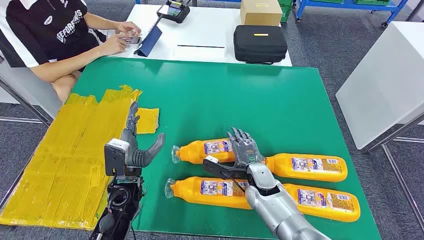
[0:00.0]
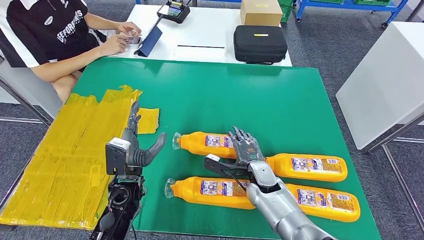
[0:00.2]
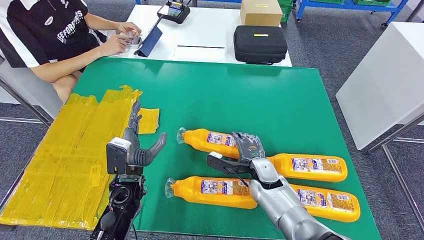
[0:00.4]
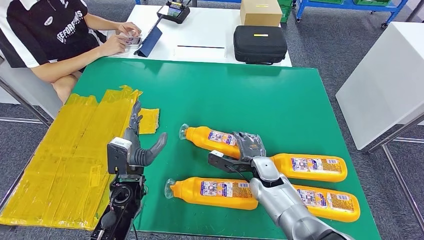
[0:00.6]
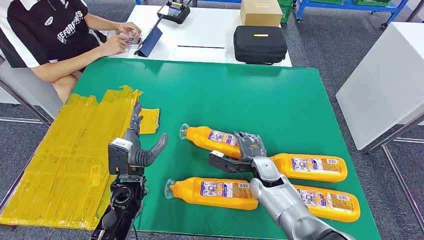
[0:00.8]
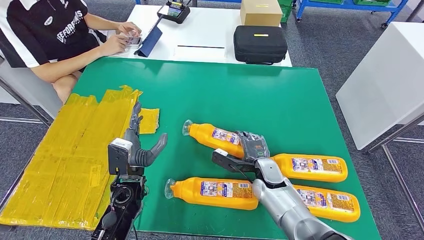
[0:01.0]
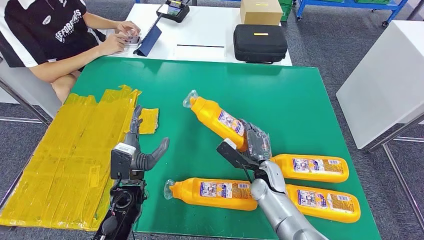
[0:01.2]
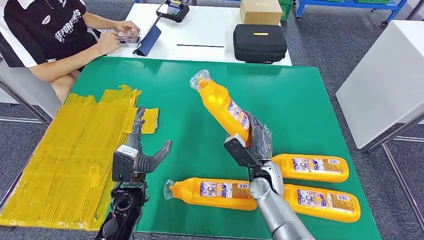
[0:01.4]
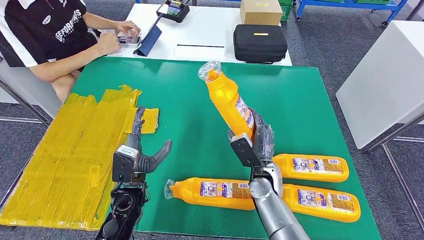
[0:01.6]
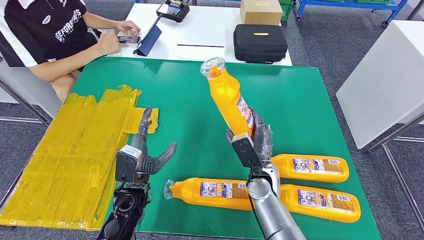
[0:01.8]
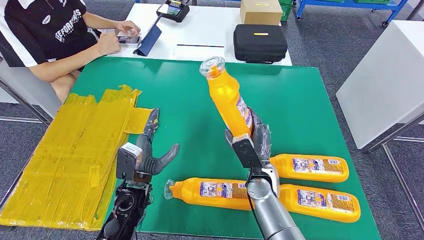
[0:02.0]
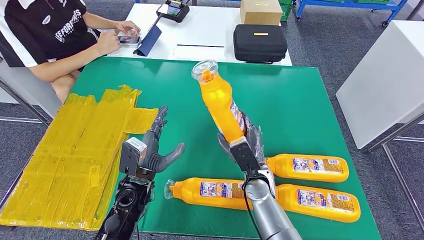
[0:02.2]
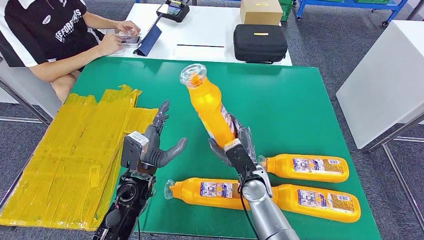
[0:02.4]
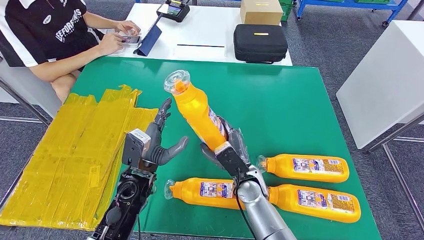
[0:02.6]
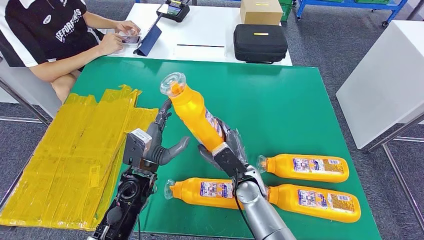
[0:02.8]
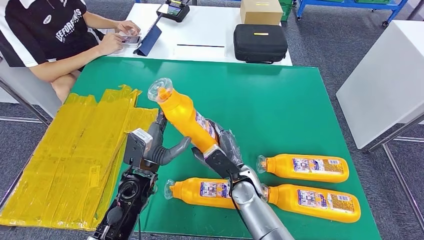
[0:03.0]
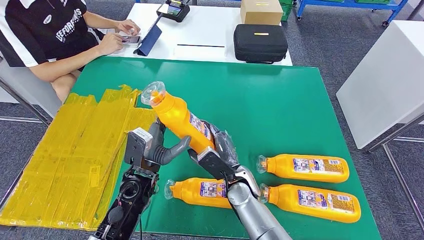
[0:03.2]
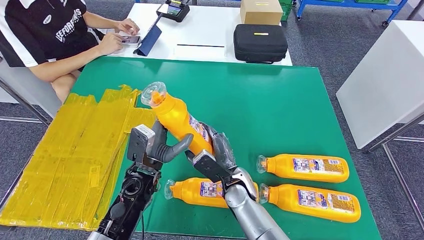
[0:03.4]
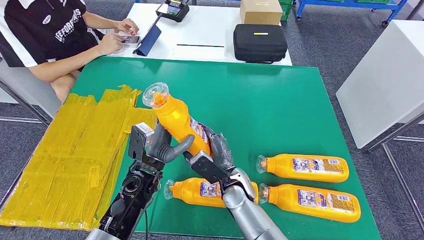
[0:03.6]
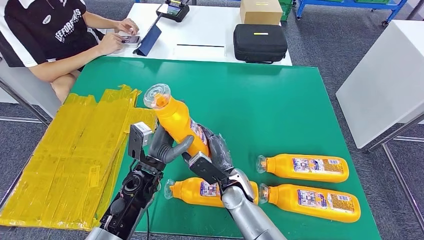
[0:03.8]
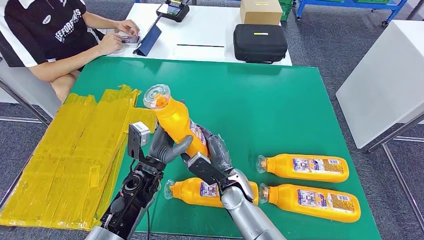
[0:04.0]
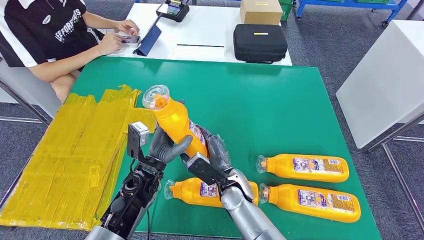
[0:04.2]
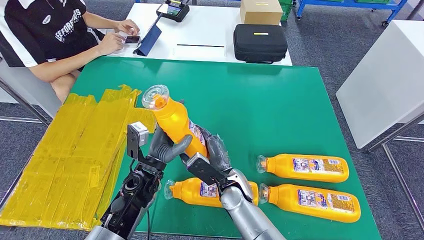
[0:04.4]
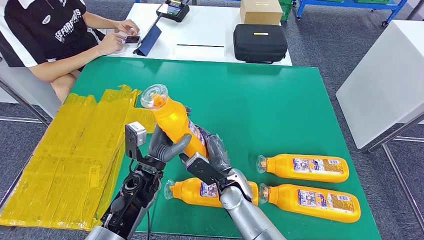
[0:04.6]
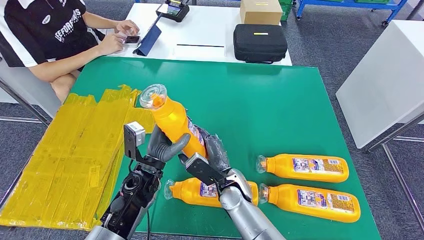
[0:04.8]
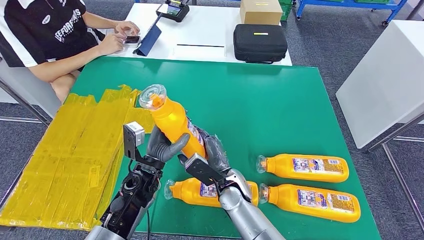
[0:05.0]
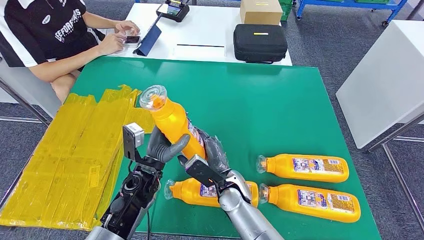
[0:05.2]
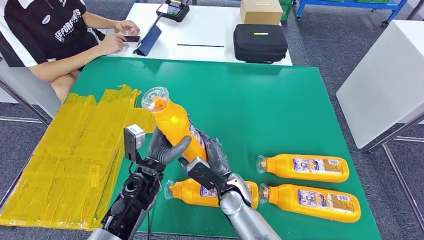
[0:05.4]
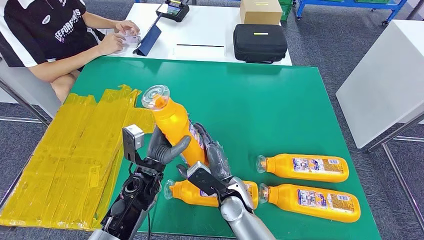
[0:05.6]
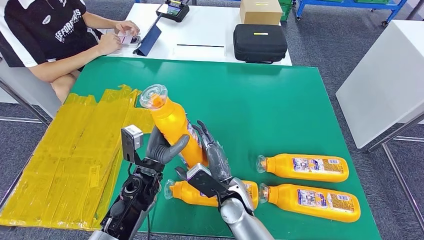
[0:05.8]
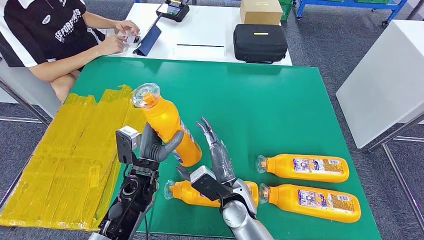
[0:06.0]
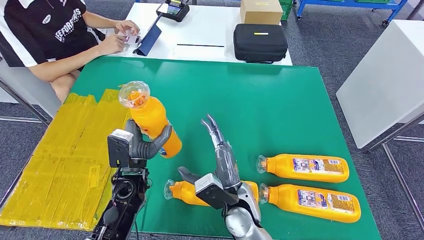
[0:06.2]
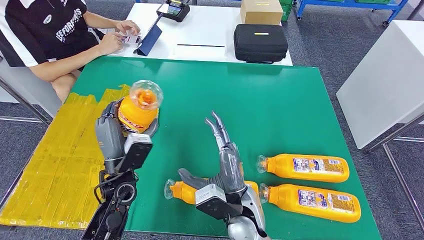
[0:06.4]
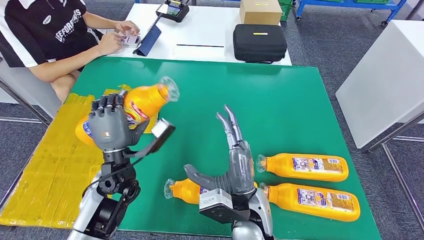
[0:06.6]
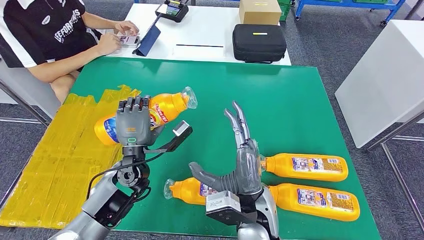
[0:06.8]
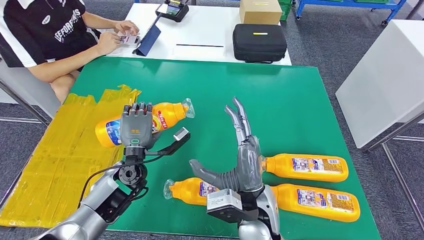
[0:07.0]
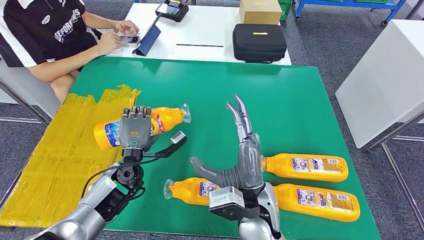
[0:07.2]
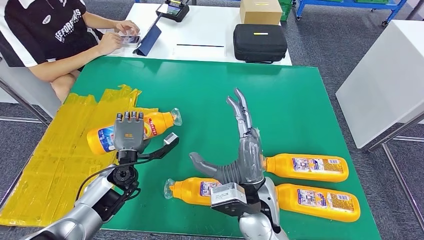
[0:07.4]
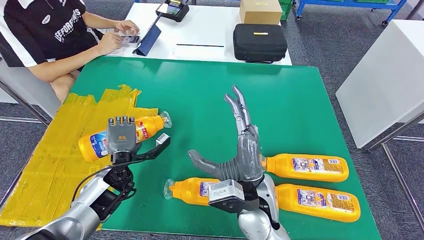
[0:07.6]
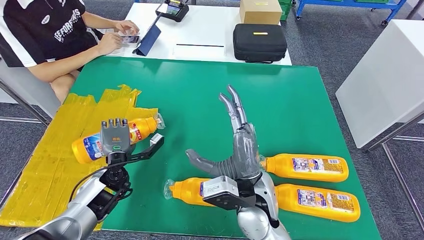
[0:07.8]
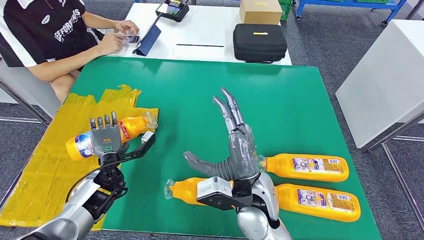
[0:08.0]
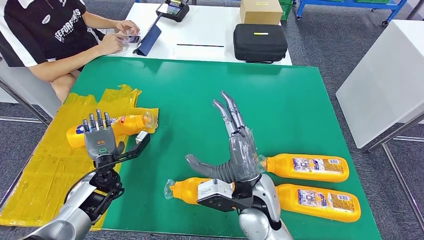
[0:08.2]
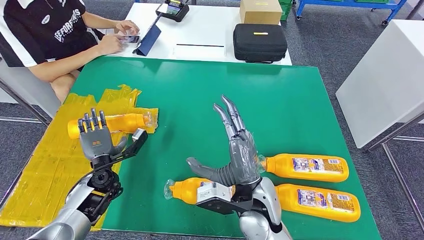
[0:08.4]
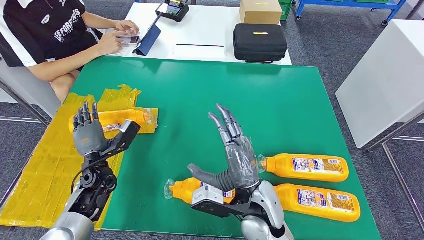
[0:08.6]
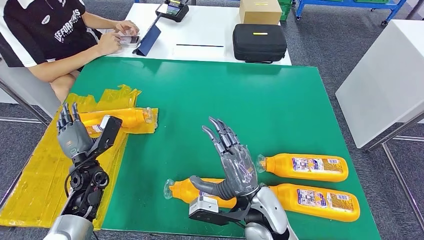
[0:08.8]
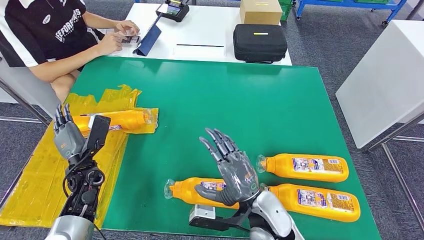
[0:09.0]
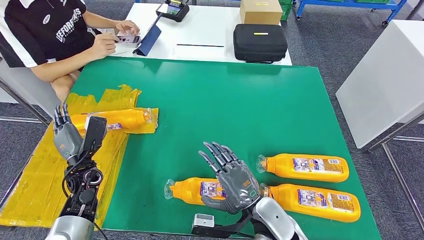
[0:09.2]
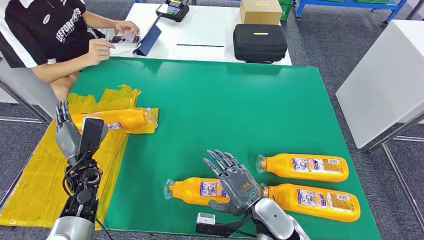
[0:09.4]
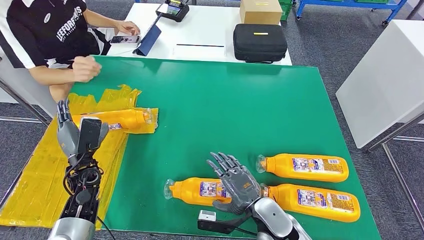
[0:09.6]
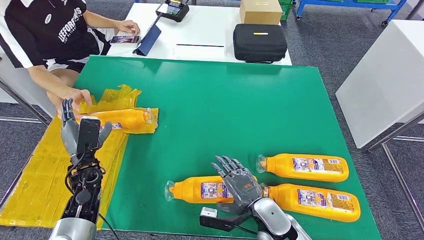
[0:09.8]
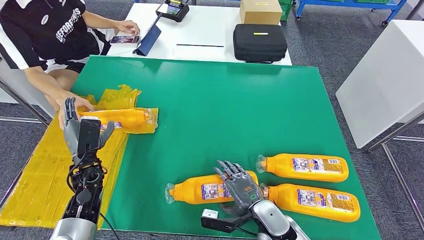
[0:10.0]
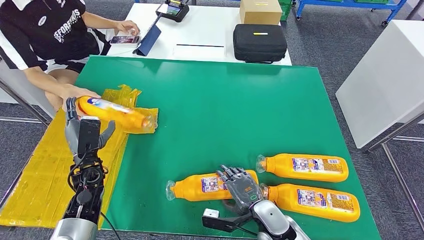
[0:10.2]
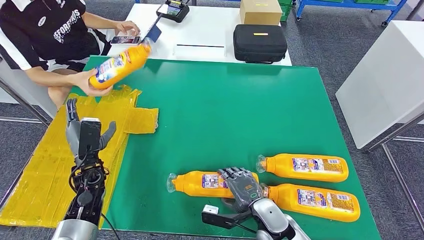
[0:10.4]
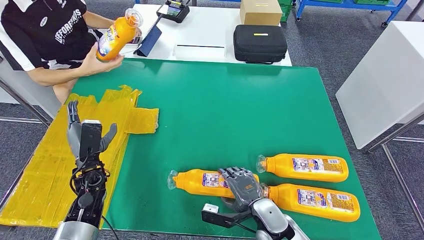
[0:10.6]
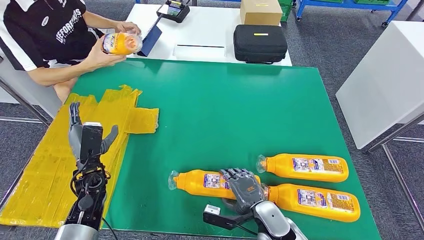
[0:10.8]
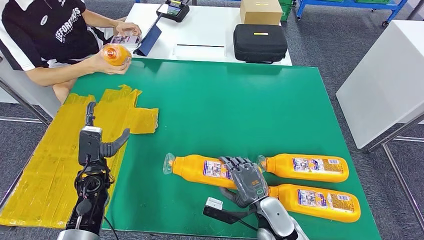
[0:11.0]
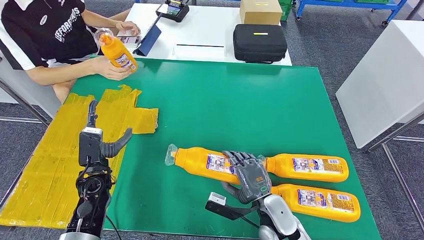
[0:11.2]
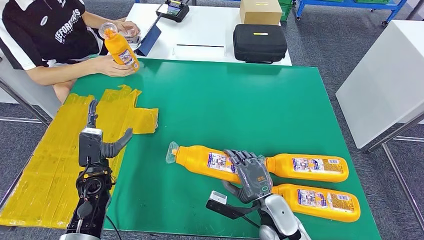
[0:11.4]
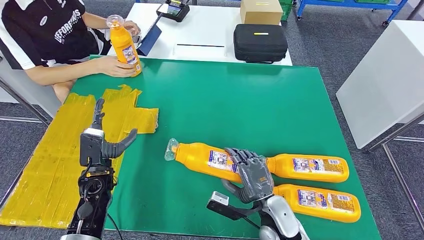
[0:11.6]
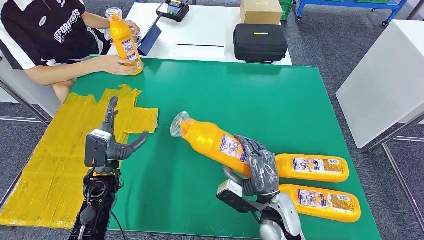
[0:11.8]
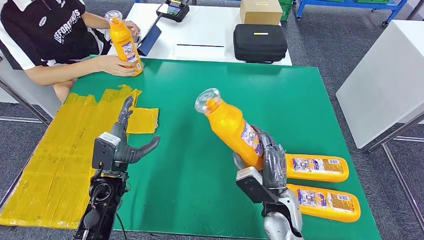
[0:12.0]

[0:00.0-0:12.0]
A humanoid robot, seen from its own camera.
Step, 0:00.0 to 0:02.4: Take the fast-moving consumer goods bottle from the table.
Step, 0:04.8 to 0:08.0: Flip the fast-moving consumer goods bottle to the front side.
0:01.6 to 0:03.0: The right hand is displaced to the left by roughly 5 cm.
0:03.0 to 0:06.0: The hands make only small movements.
0:06.0 to 0:07.6: The right hand goes about 10 cm upward, while the left hand moves to the left, some 10 cm.
0:07.6 to 0:09.0: The right hand is displaced downward by roughly 5 cm. The left hand heads to the left, covering about 5 cm.
0:09.0 to 0:10.4: The right hand travels downward by approximately 10 cm.

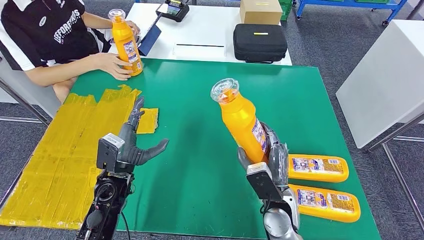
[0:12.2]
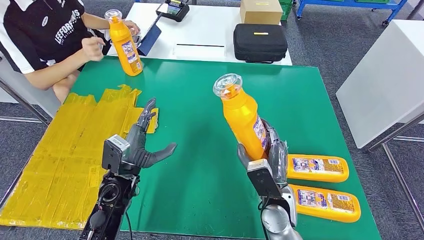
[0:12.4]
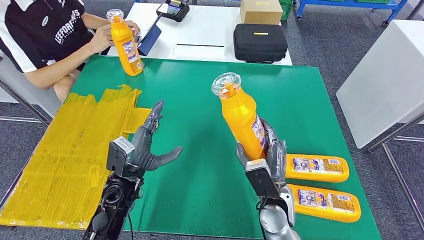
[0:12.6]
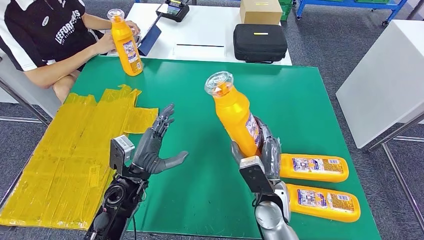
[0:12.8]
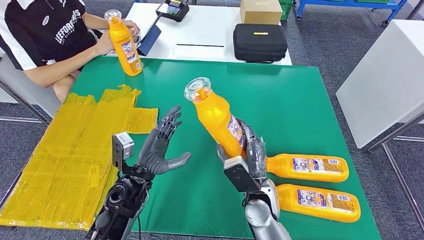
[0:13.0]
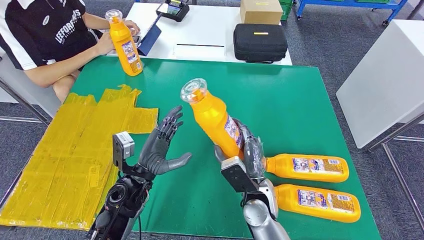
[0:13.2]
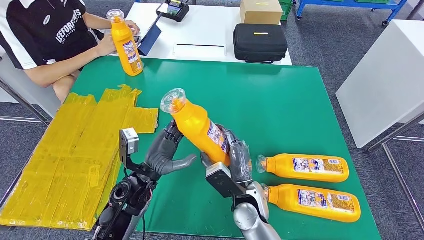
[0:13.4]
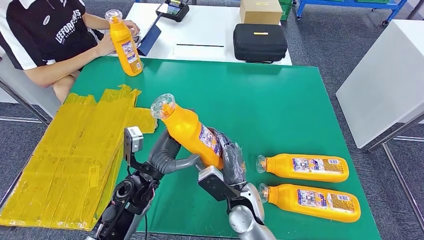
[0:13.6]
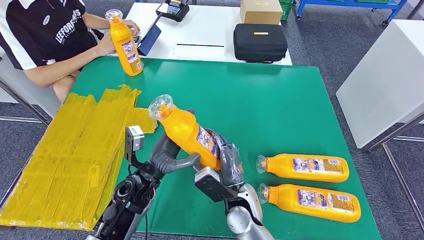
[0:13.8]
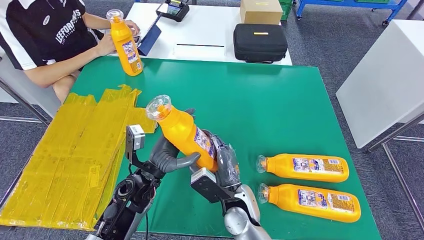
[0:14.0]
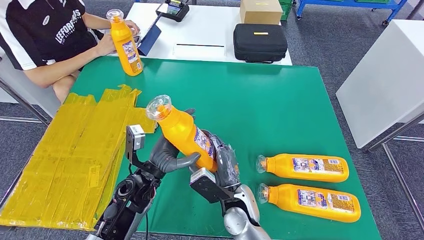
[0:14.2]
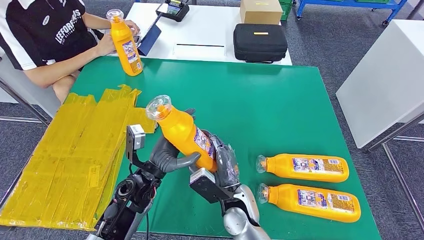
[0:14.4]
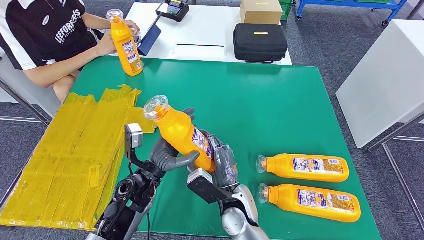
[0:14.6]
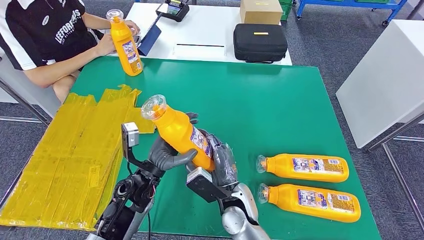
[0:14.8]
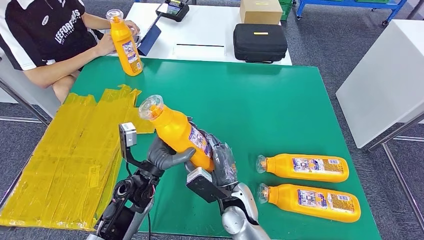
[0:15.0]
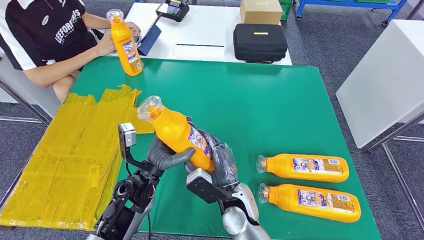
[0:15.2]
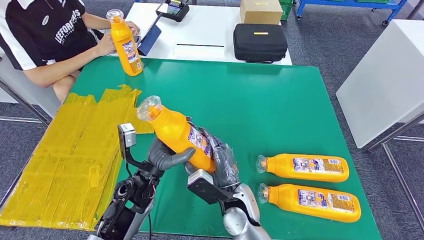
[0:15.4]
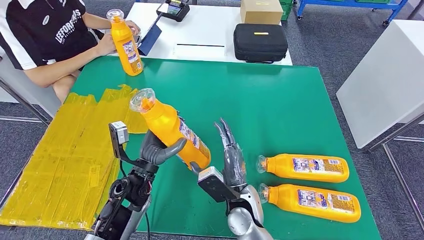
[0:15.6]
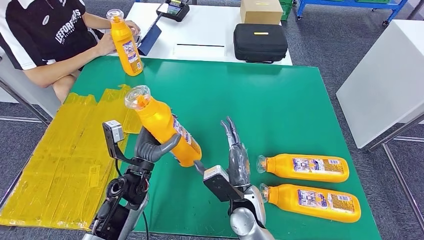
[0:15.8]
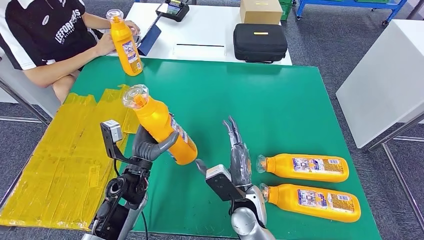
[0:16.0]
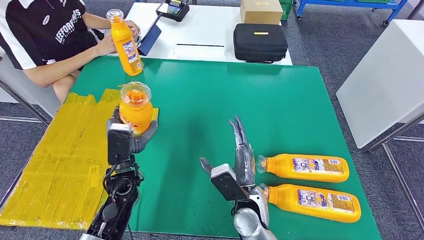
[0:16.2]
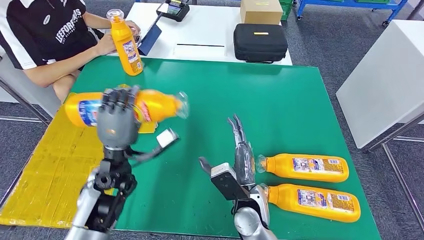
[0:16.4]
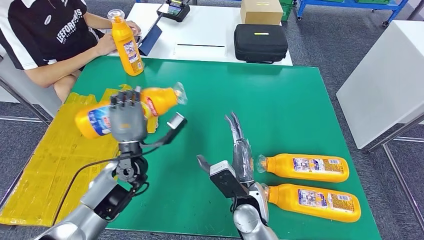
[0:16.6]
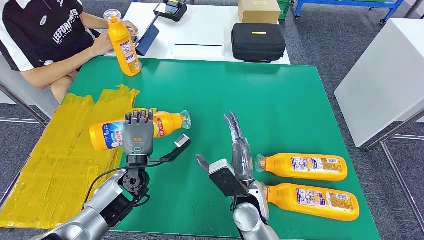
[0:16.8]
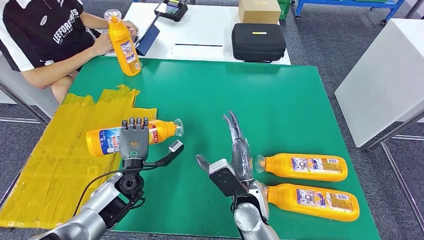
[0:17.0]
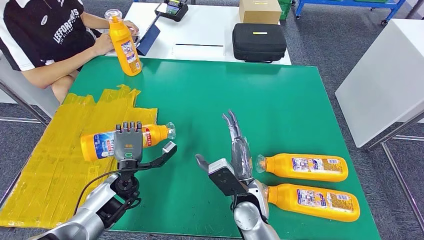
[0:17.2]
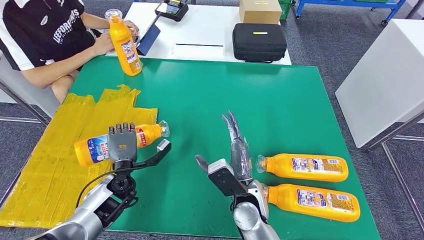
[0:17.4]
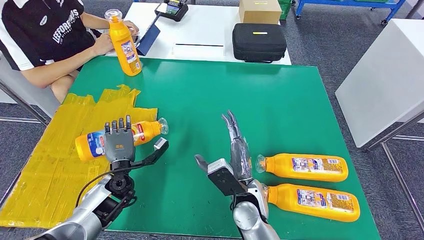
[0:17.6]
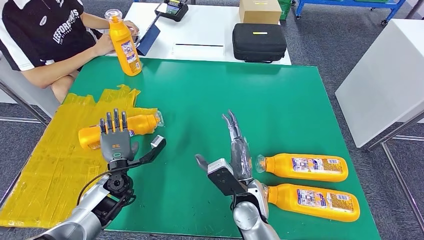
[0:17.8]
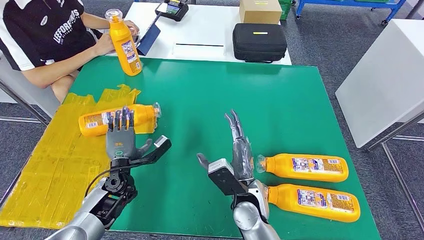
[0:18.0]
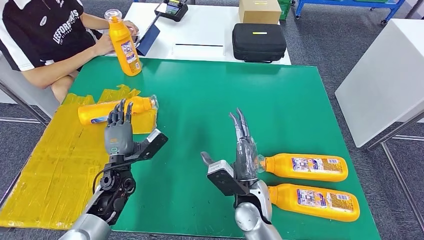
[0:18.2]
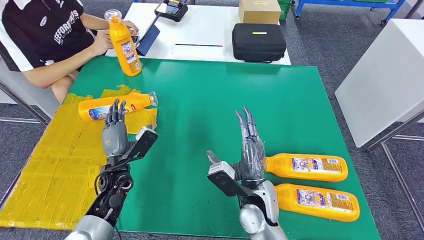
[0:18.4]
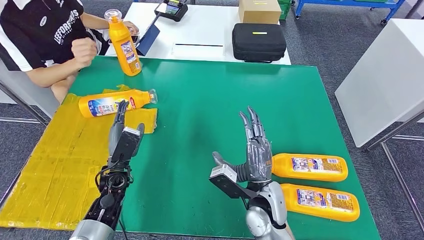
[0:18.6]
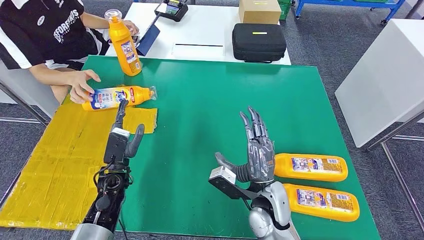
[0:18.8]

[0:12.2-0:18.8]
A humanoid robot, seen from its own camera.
Step, 0:14.6 to 0:17.8: Flip the fast-moving consumer goods bottle to the front side.
0:13.8 to 0:15.4: The hands move only a little.
0:15.4 to 0:17.2: The left hand heads to the left and downward, covering approximately 10 cm.
